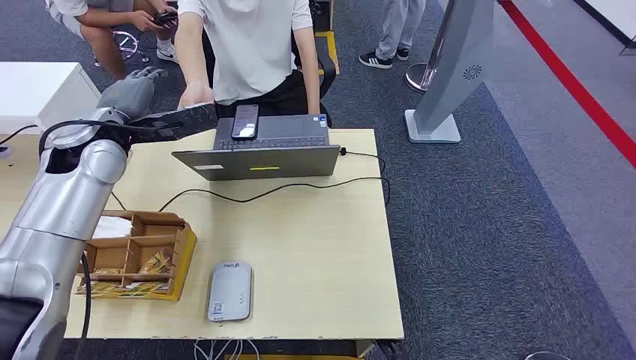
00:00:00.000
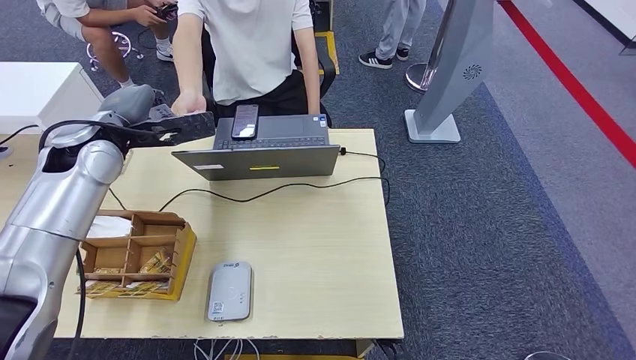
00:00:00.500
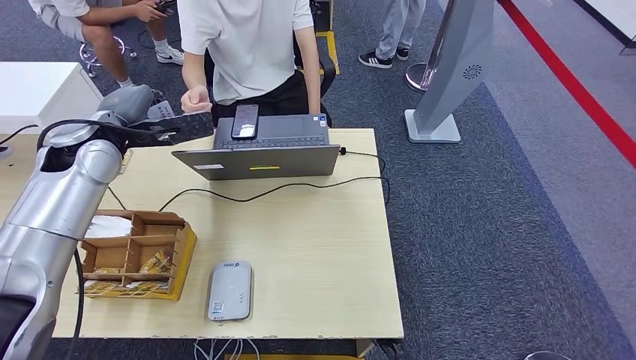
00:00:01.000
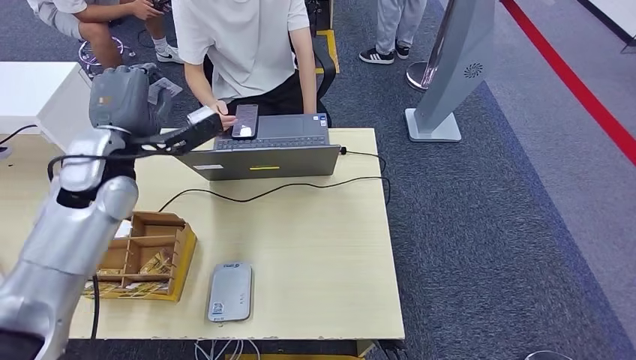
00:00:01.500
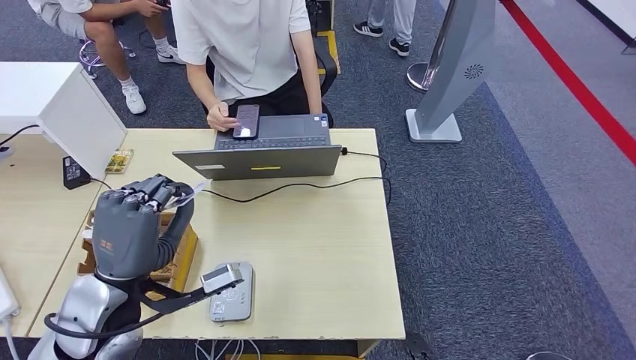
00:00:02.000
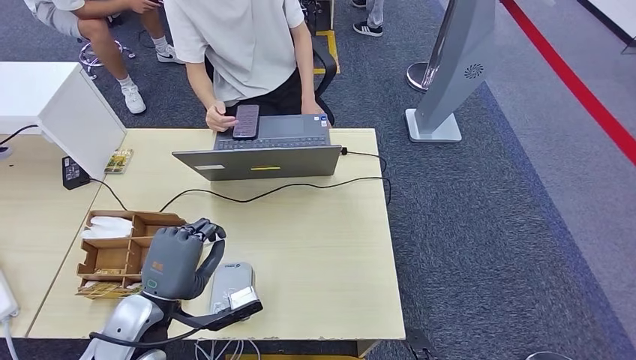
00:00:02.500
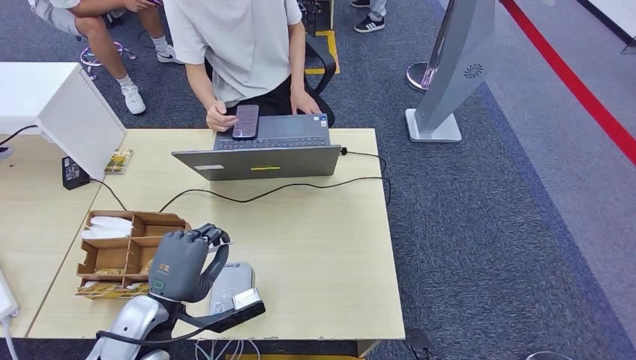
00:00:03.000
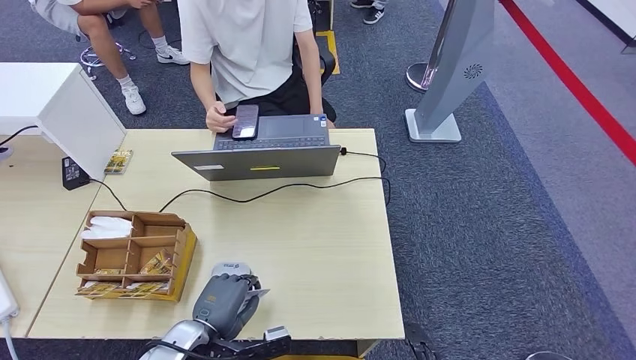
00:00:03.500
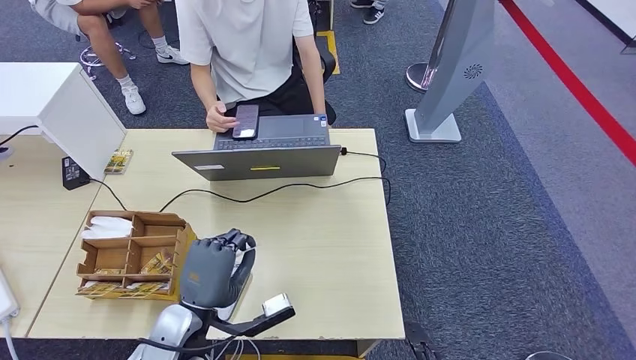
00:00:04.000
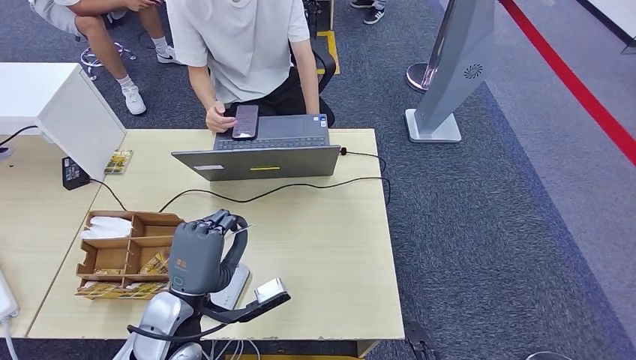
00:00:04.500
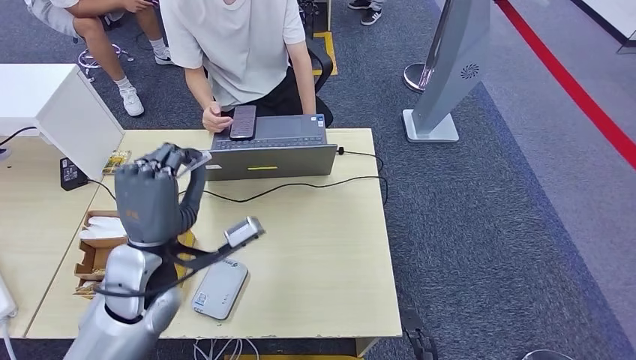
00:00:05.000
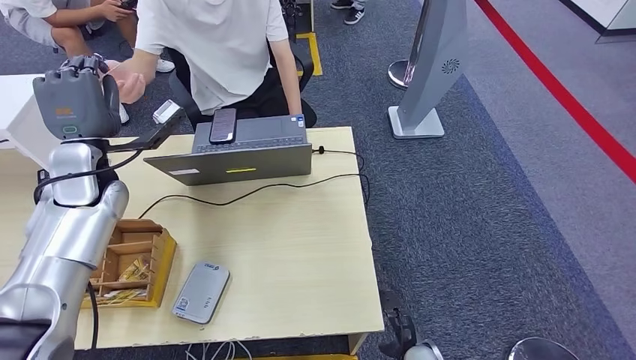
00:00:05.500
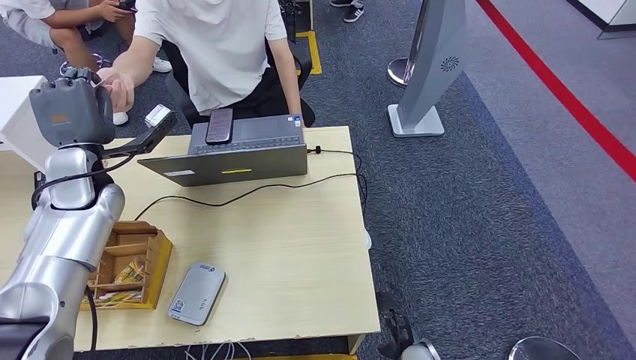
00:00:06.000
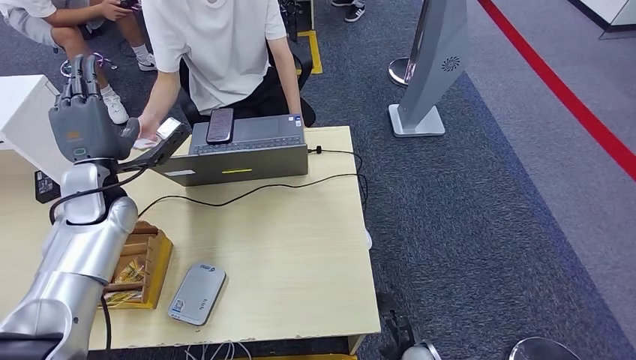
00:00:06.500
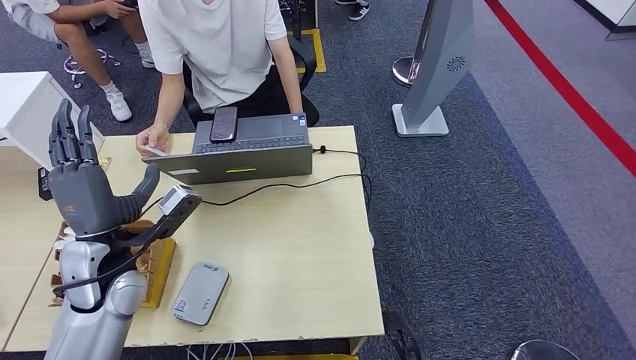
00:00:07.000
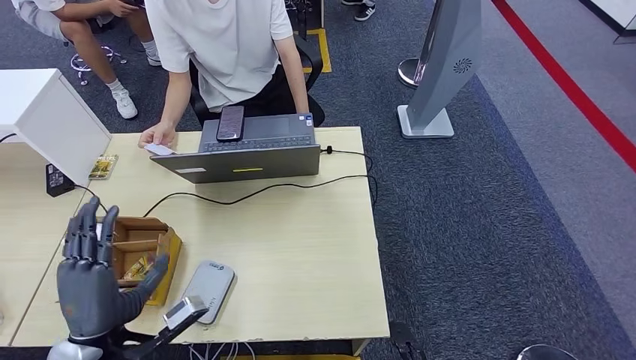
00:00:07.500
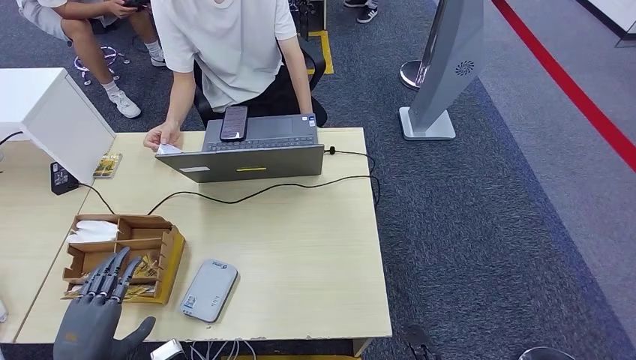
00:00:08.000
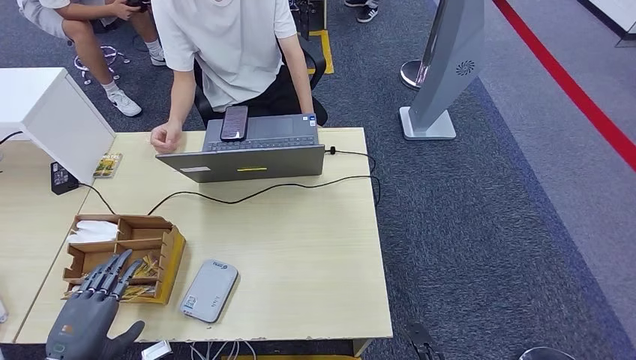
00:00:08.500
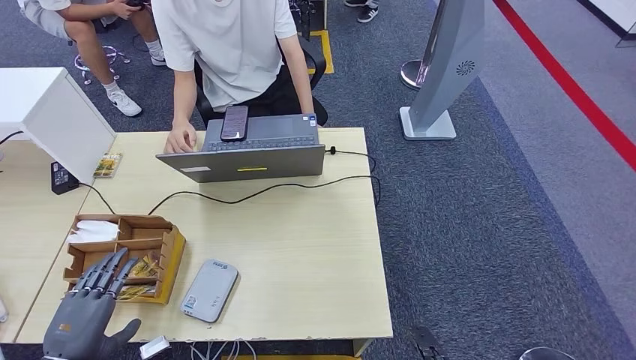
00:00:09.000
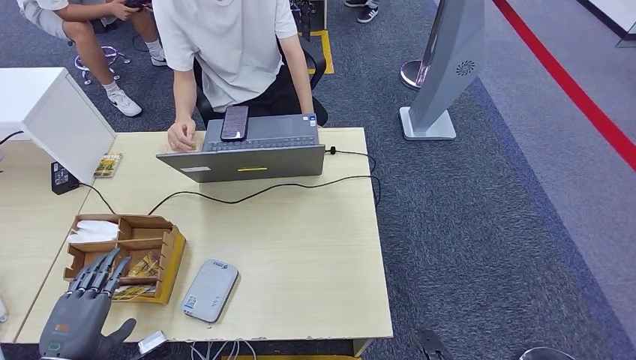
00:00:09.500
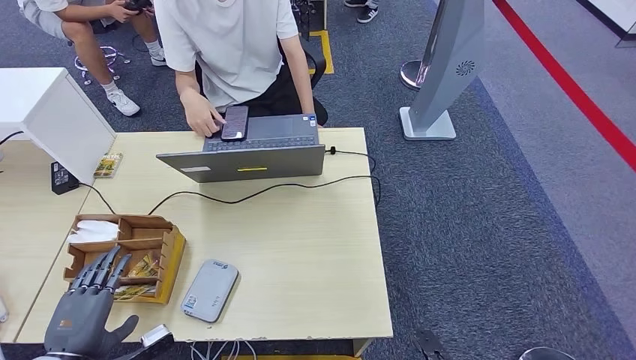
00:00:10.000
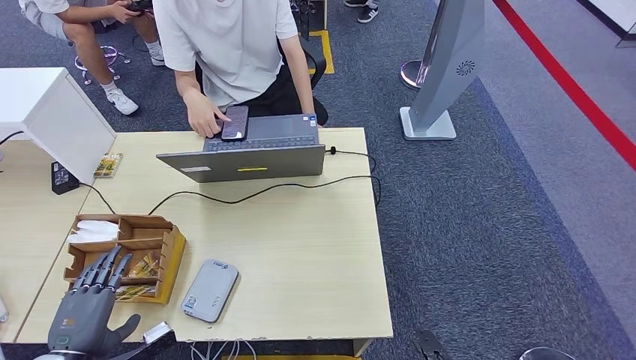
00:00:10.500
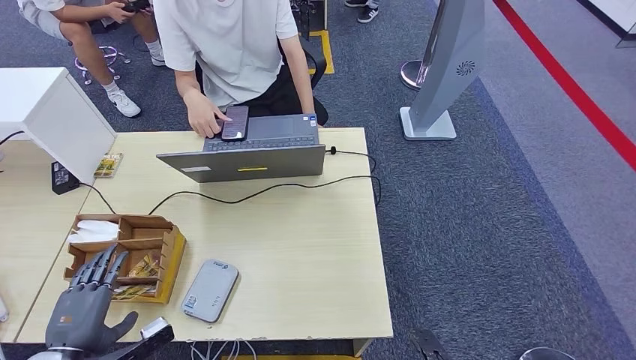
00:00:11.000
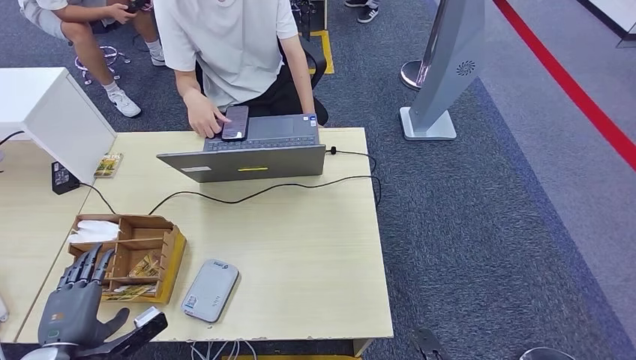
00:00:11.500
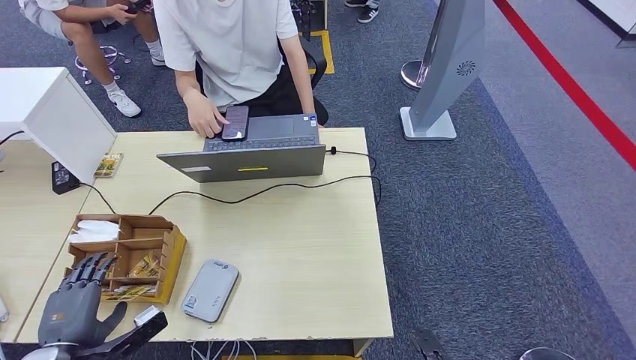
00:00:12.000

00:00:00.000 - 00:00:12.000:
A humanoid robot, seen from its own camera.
Step, 00:00:00.000 - 00:00:02.000: Take the ID card from the person's hand.
Step, 00:00:02.500 - 00:00:05.500: Place the ID card on the card reader.
Step, 00:00:06.000 - 00:00:09.000: Hand the ID card to the person.
00:00:02.000 - 00:00:04.000: The left hand goes some 10 cm downward and to the right.
00:00:08.000 - 00:00:12.000: There are only small adjustments of the hands.

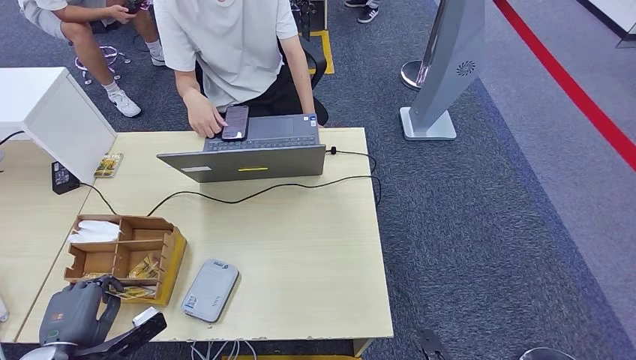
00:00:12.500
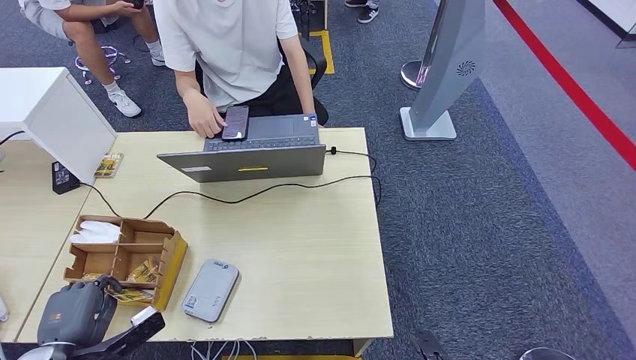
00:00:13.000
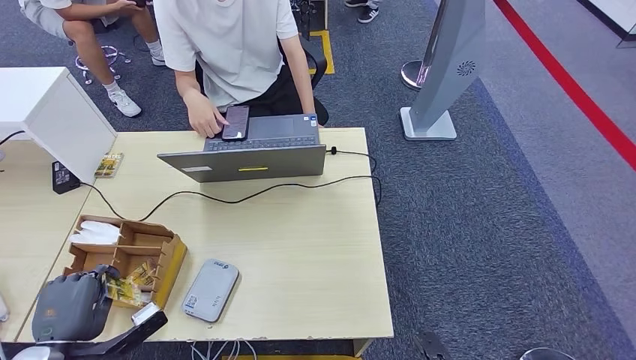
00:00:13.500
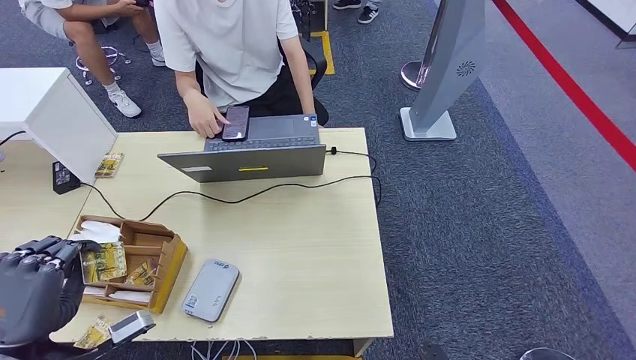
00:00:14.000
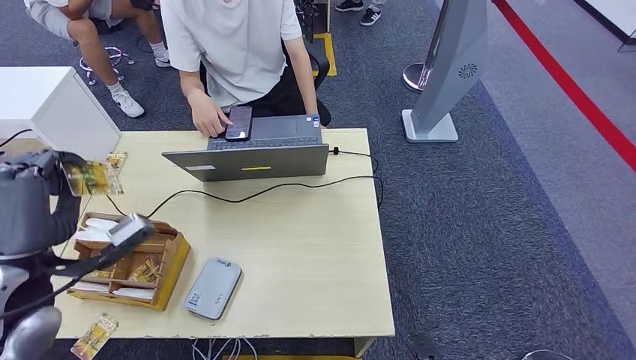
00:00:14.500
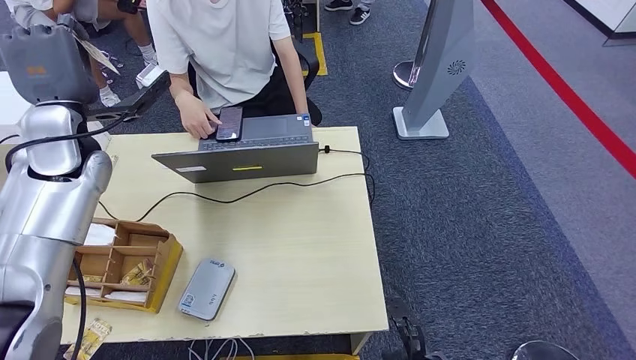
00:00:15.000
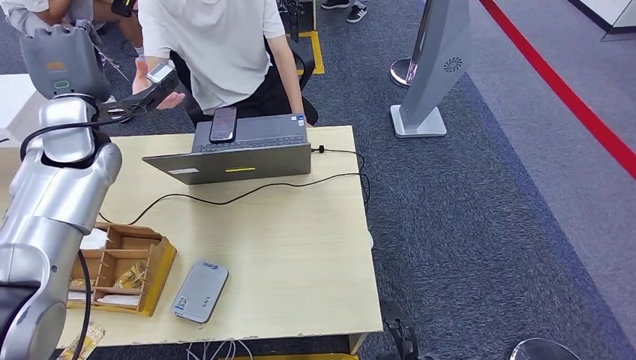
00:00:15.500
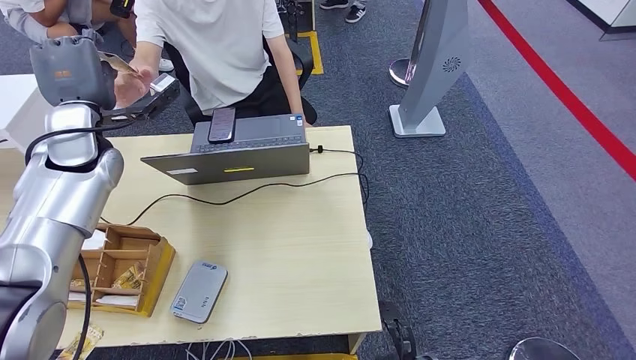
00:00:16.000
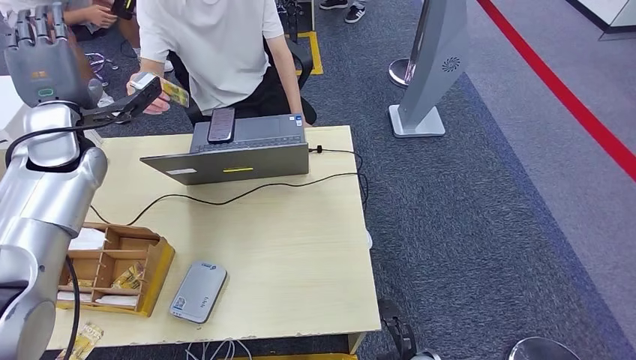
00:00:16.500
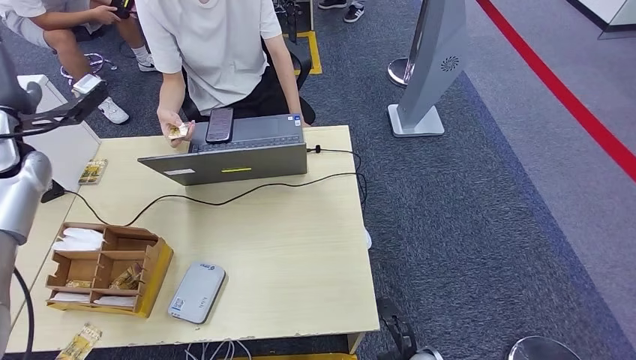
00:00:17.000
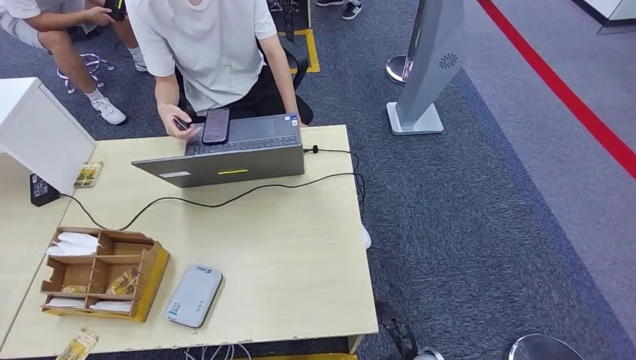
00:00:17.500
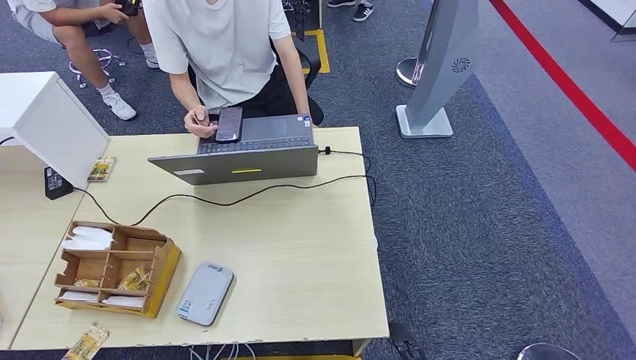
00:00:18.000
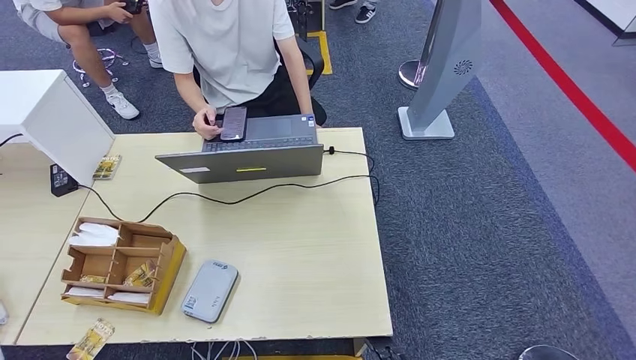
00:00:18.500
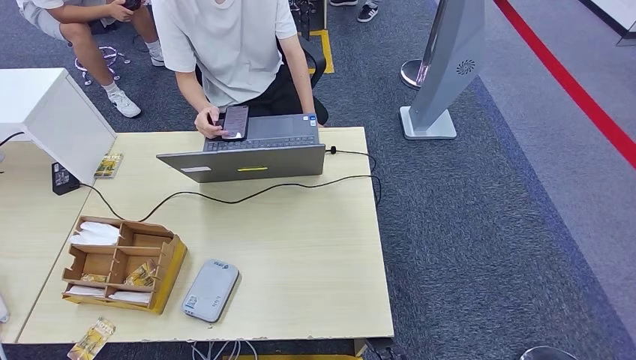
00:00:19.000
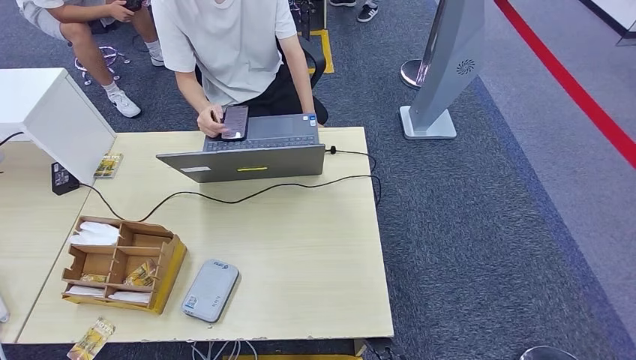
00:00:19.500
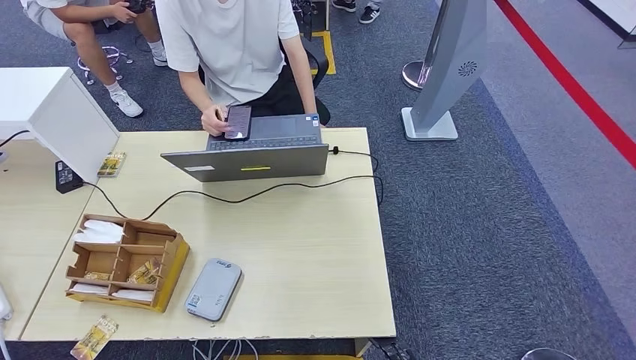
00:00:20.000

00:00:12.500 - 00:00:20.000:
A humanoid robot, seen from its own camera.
Step, 00:00:14.500 - 00:00:20.000: Hand the room key to the person.
00:00:12.500 - 00:00:14.500: The left hand shifts some 20 cm upward and forward.
